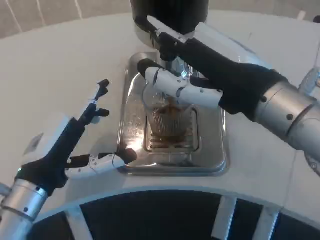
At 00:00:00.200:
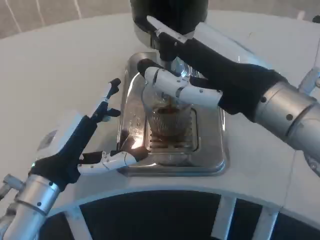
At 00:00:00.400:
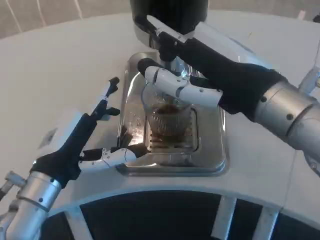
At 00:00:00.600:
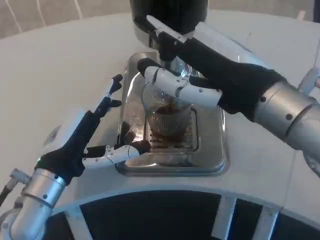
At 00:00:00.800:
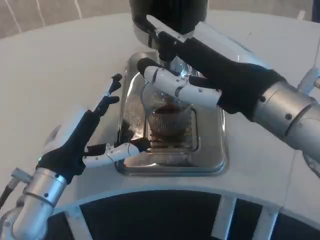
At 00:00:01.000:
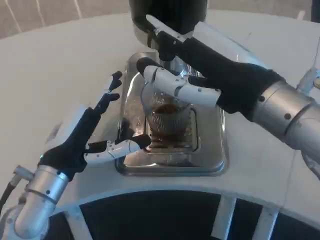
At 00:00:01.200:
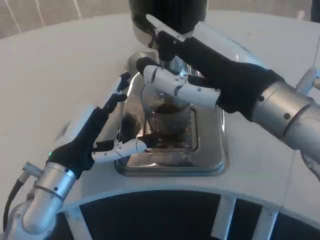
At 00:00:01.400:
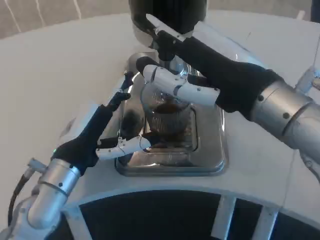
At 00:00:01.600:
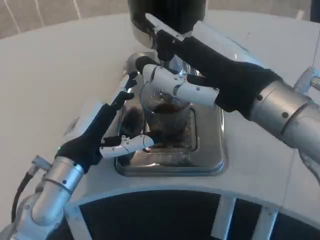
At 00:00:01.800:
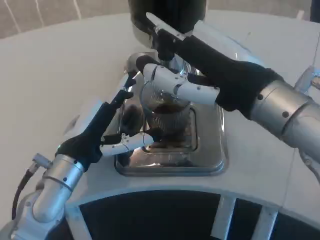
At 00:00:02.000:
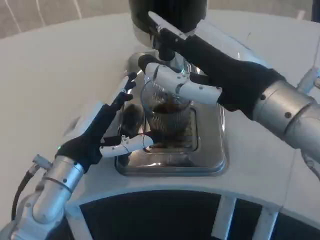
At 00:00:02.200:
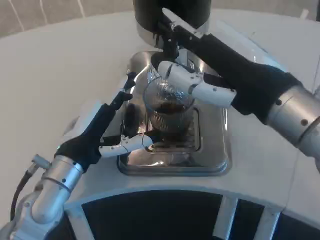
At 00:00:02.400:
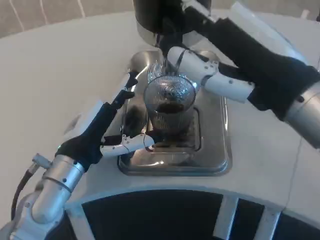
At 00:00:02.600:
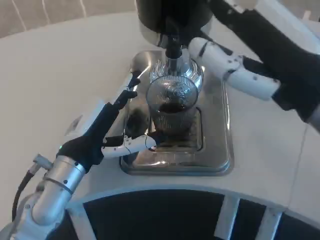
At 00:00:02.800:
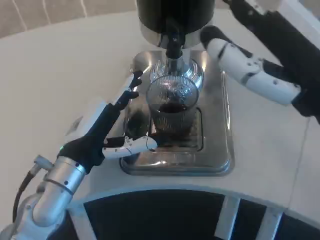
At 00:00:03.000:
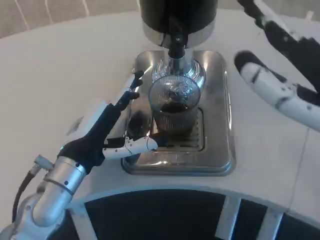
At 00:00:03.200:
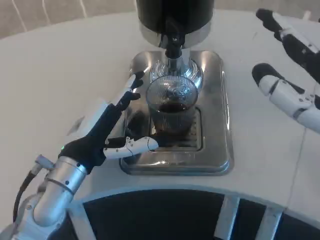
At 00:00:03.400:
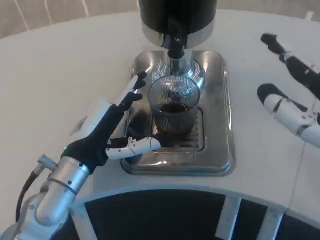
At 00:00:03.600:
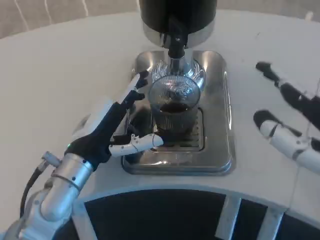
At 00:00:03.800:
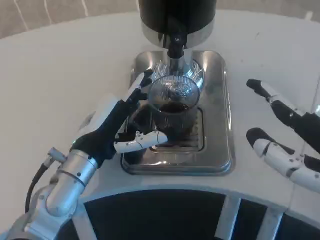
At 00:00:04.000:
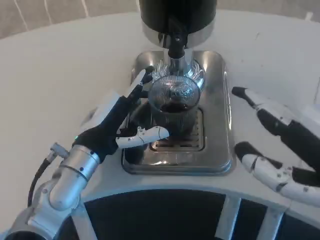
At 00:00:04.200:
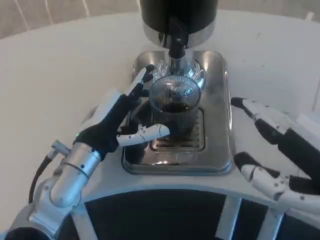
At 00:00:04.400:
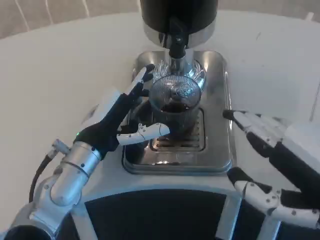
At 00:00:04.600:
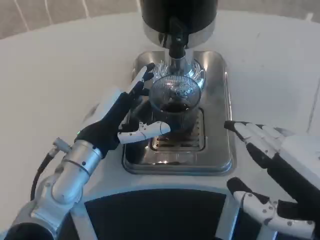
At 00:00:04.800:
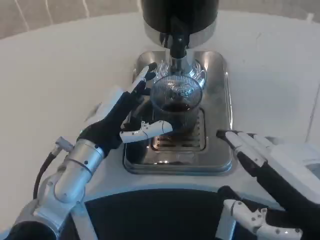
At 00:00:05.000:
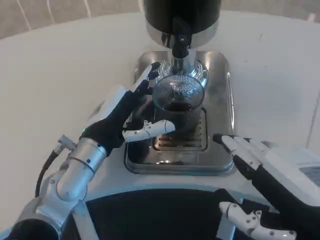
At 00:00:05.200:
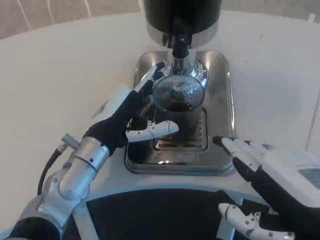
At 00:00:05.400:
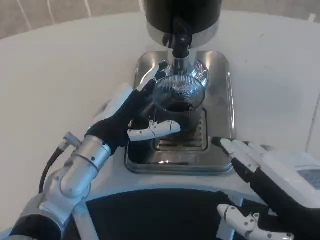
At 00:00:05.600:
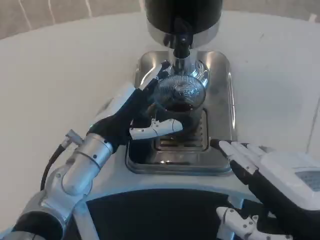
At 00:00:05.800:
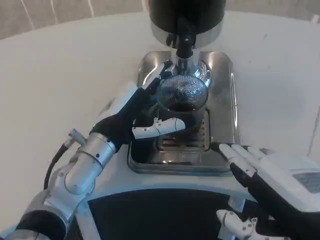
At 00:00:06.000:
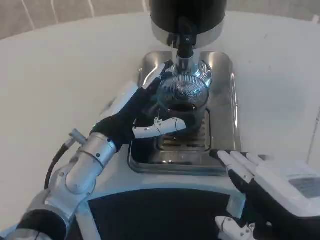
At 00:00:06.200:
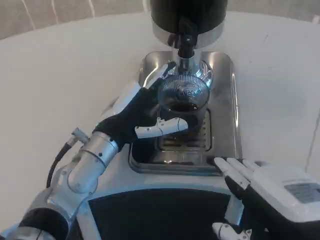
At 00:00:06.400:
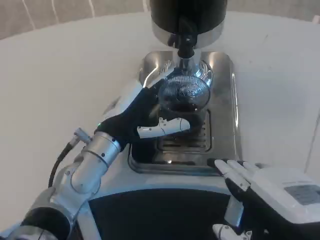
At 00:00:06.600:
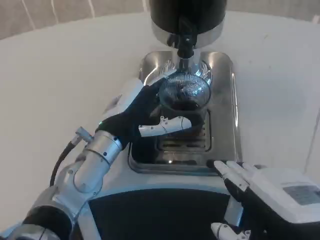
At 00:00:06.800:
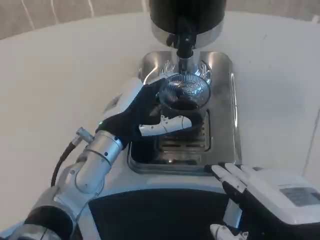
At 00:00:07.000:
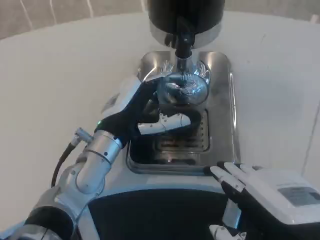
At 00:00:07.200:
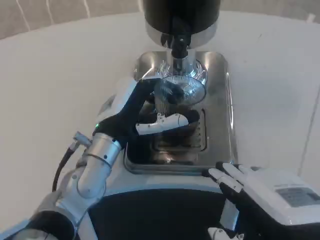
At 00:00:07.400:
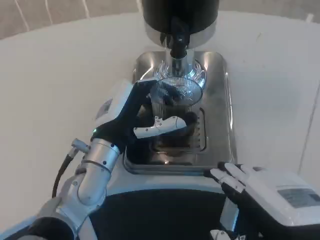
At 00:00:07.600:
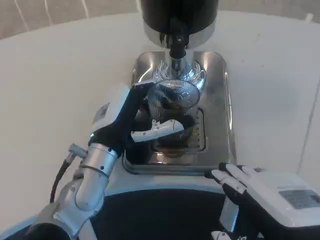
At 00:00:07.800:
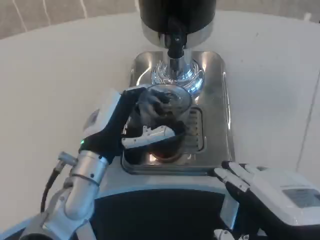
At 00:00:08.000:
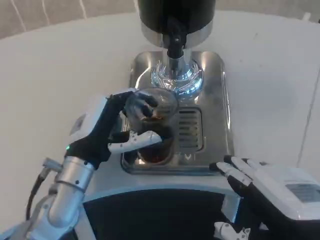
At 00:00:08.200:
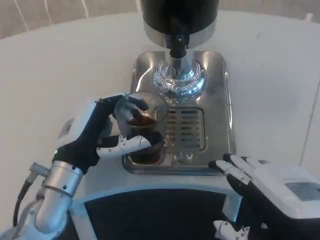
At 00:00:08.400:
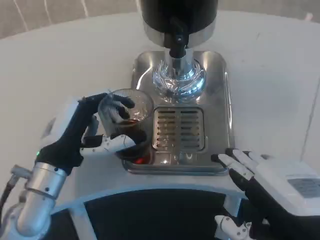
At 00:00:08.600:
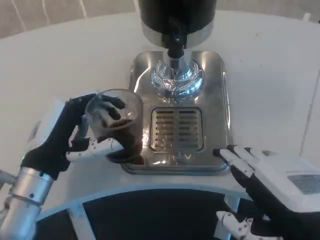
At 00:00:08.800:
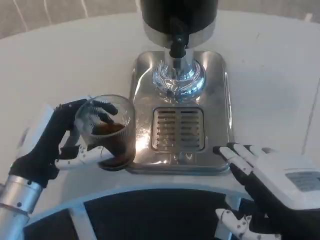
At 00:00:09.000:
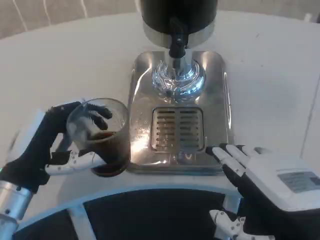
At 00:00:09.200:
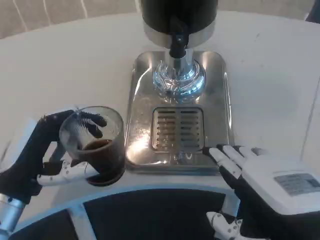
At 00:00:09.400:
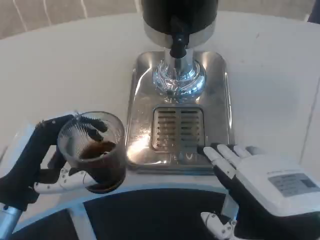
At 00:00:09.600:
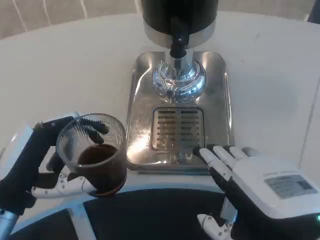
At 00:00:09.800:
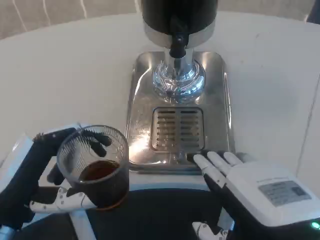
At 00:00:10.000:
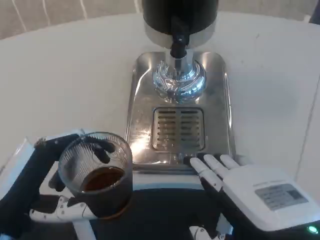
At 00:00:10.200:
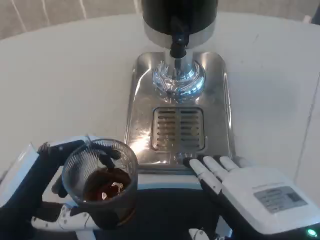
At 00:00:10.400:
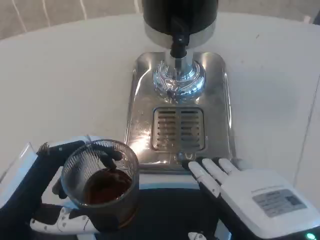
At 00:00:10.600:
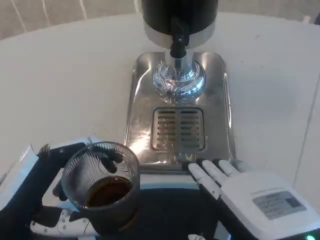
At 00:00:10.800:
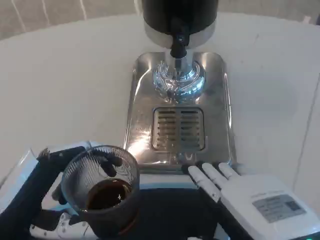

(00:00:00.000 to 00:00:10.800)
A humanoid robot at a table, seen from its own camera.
Task of the whole recording: Grasp the cup under the faucet to collect the drink, then remove the cup.
00:00:00.000 - 00:00:01.600: The left hand shifts by some 5 cm.
00:00:01.600 - 00:00:03.000: The right hand heads backward and to the right, covering about 10 cm.
00:00:03.000 - 00:00:04.600: The right hand heads downward, covering some 5 cm.
00:00:07.800 - 00:00:09.200: The left hand shifts about 15 cm to the left and backward.
00:00:09.200 - 00:00:10.800: The left hand moves backward, some 5 cm.
